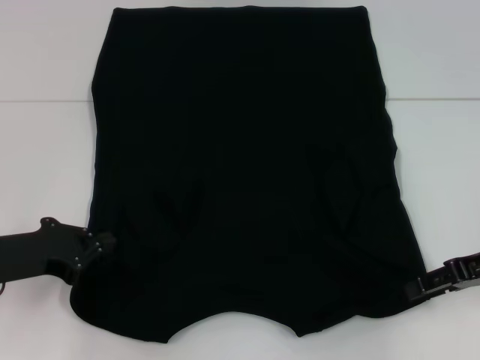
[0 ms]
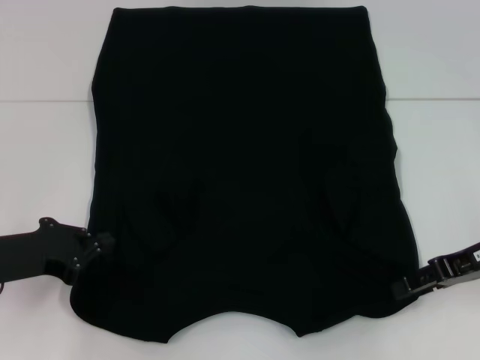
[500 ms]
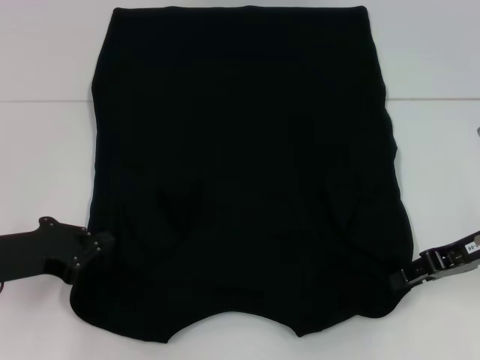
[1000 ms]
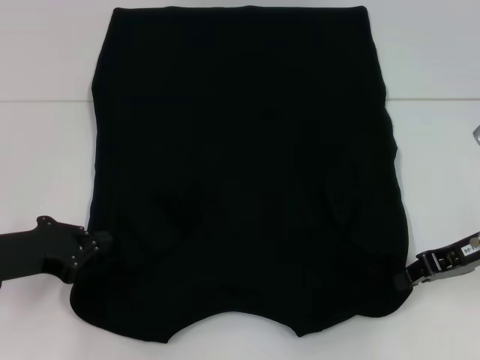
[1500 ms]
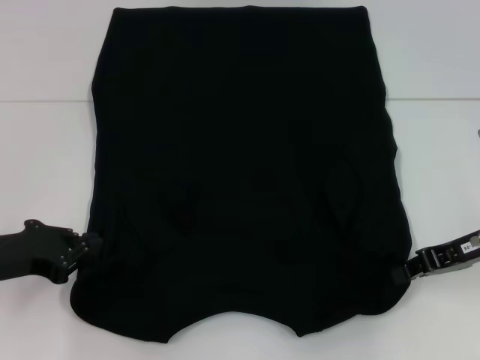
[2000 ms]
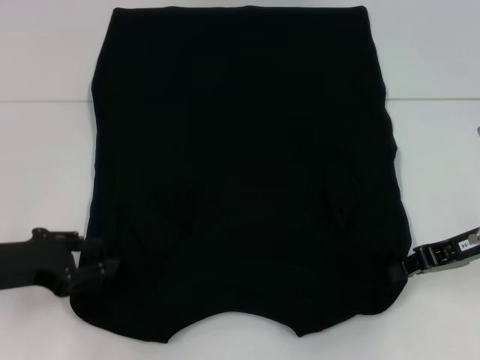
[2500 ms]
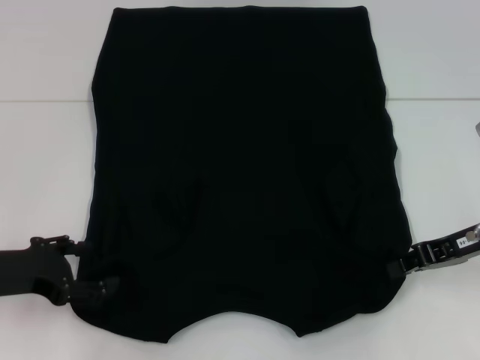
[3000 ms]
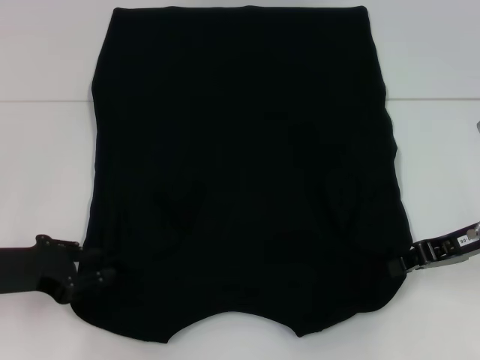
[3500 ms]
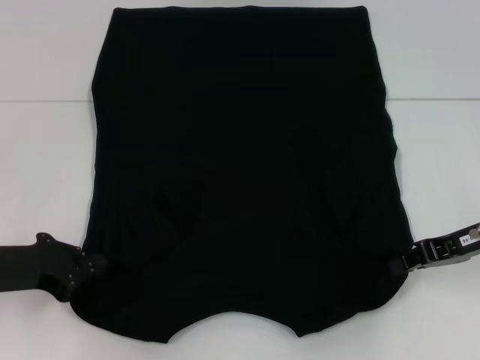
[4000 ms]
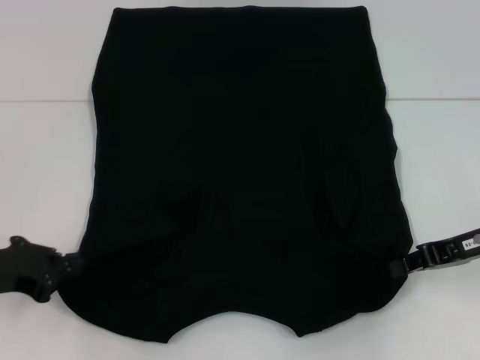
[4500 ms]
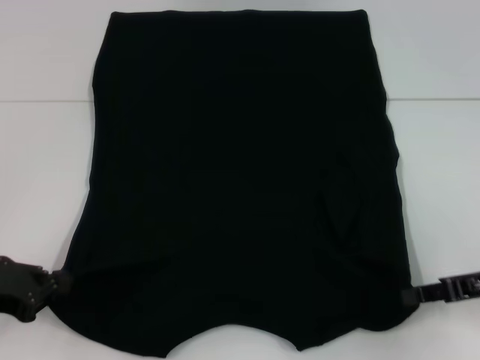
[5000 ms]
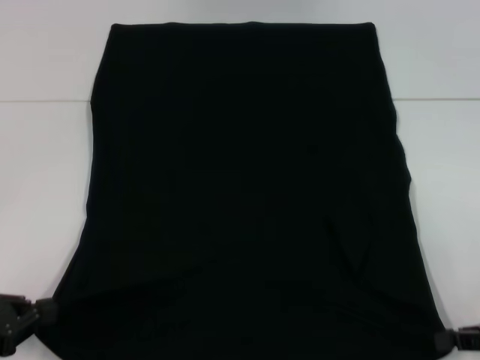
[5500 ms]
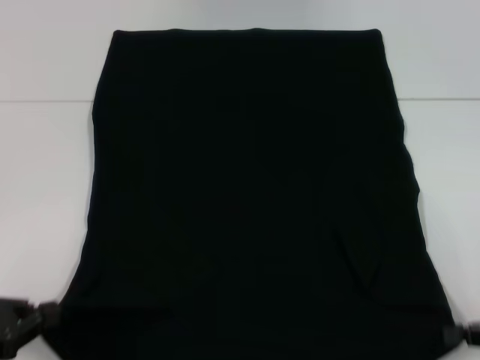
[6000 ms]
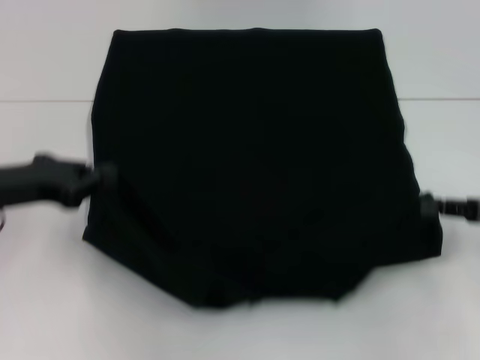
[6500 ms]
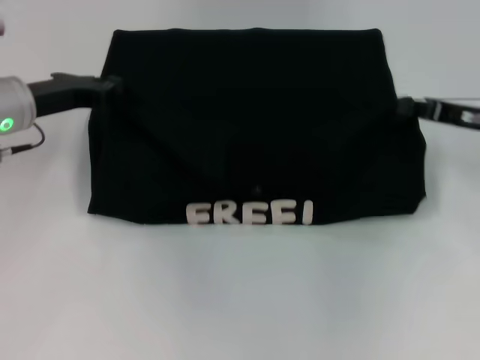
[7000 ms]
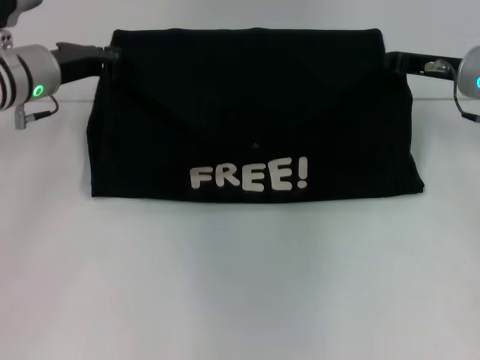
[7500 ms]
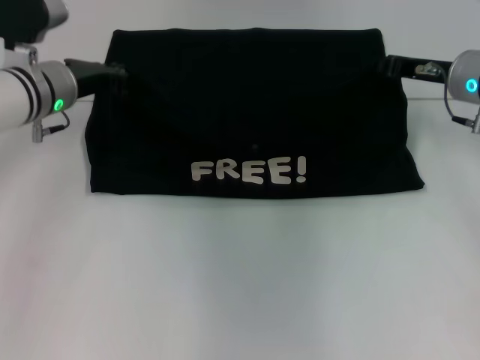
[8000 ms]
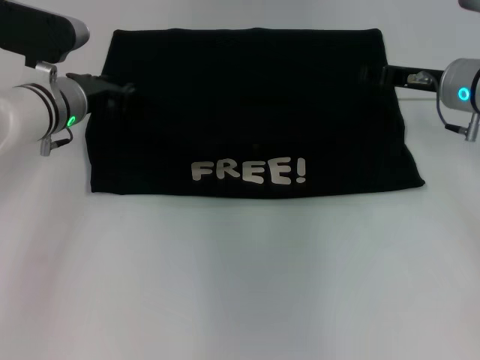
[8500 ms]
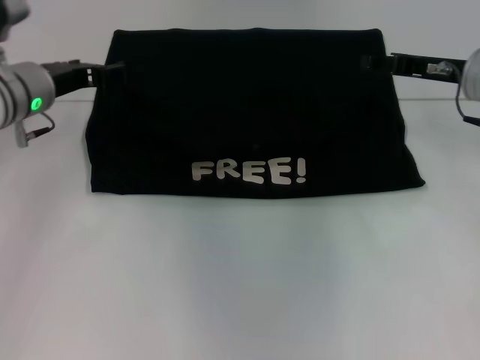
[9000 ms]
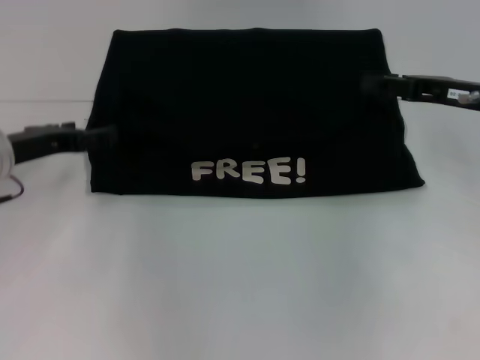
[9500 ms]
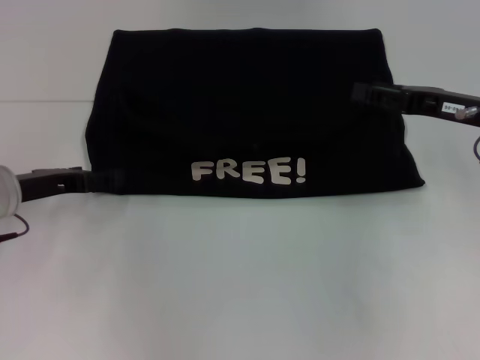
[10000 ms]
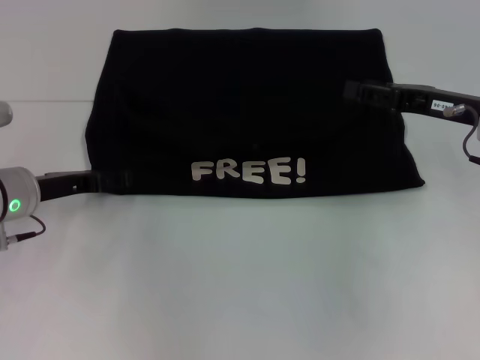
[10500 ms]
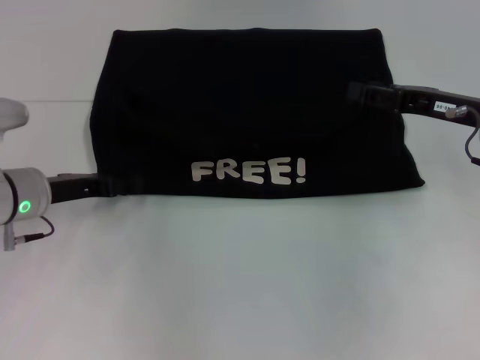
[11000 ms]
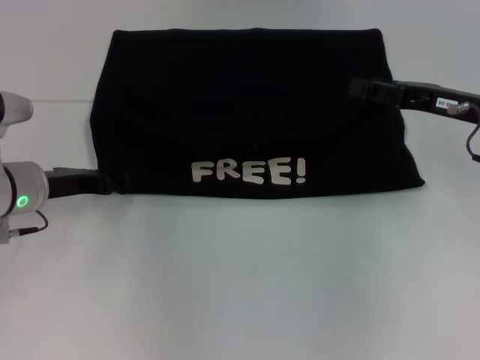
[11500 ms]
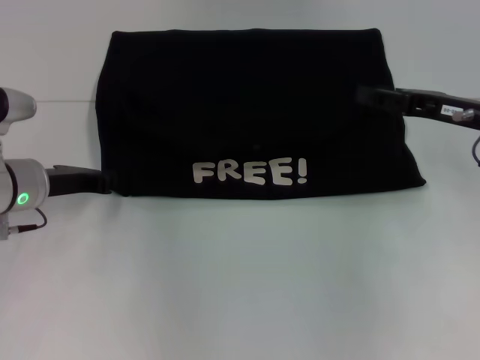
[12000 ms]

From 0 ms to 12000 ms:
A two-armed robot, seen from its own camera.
Step, from 0 ms to 9000 ms: Fold the clothes with your left hand.
Step, from 0 ms to 9000 ms: Fold the clothes with your right hand.
From 0 ms to 2000 ms: The right gripper closes.
From 2000 ms to 4000 ms: The left gripper opens, then closes once more.
From 4000 ms to 6000 ms: The left gripper heads backward, covering about 10 cm; the right gripper is displaced backward and to the right by about 15 cm.
From 6000 ms to 8000 ms: The right gripper is displaced forward and to the left by roughly 25 cm. Meanwhile the left gripper is displaced forward and to the right by approximately 30 cm.
From 8000 ms to 10000 ms: The left gripper goes some 10 cm backward and to the left, and opens up, while the right gripper is displaced backward by roughly 5 cm, and opens.
From 10000 ms to 12000 ms: The left gripper closes its fingers.

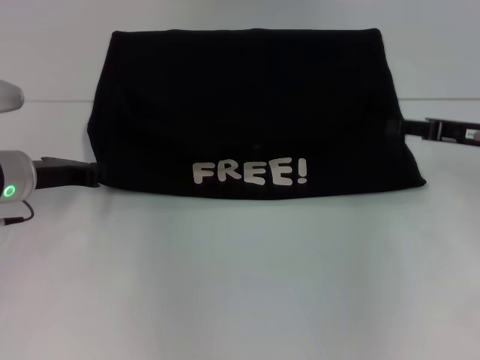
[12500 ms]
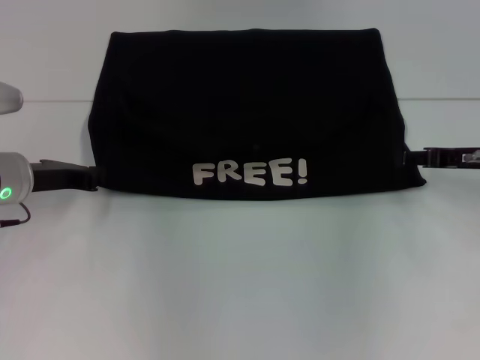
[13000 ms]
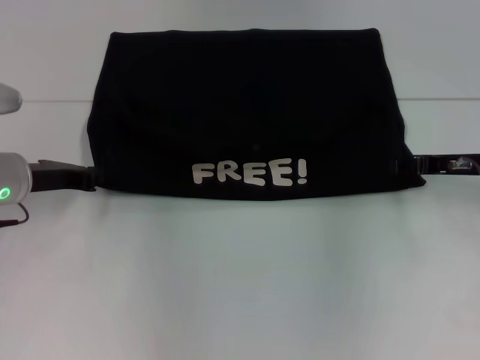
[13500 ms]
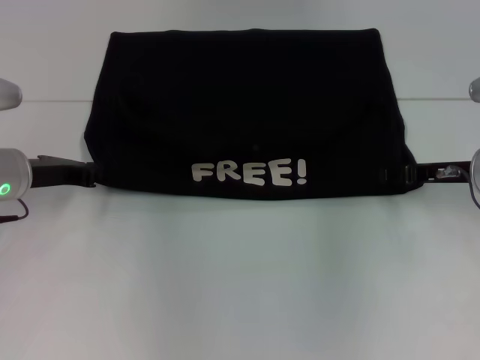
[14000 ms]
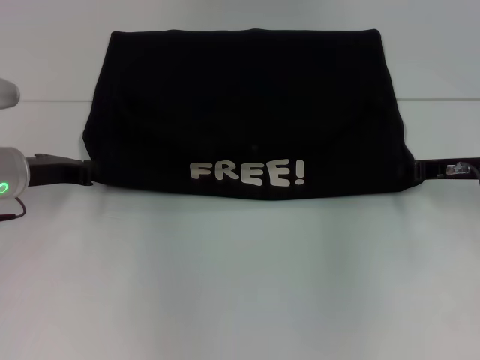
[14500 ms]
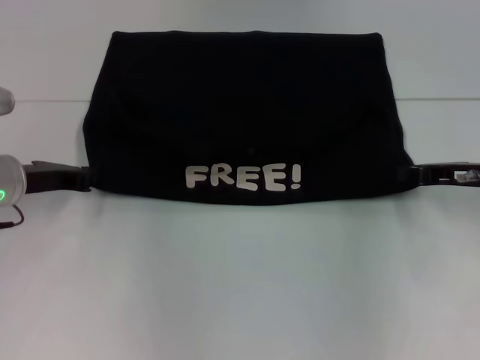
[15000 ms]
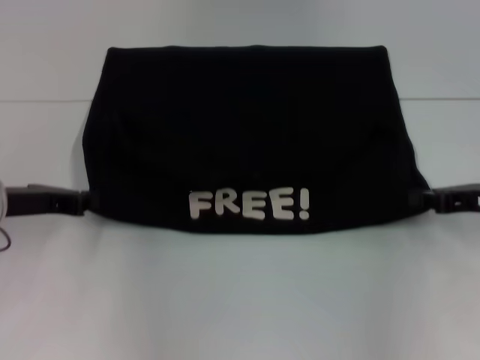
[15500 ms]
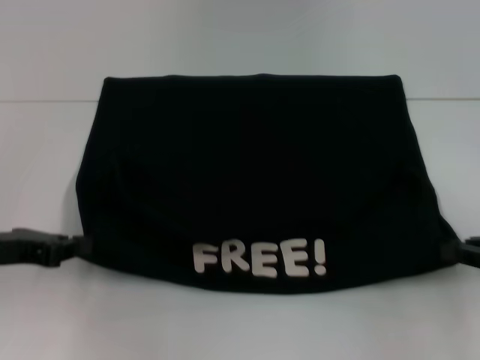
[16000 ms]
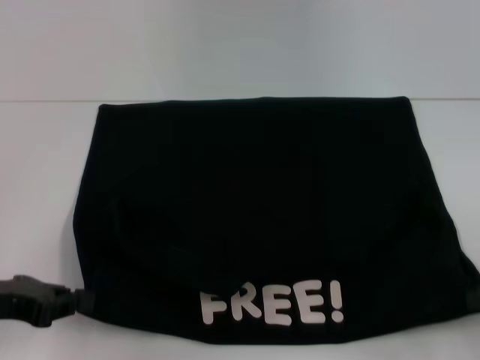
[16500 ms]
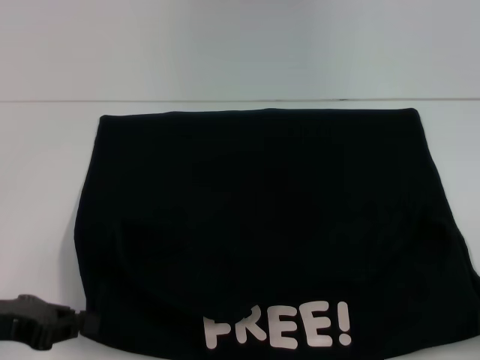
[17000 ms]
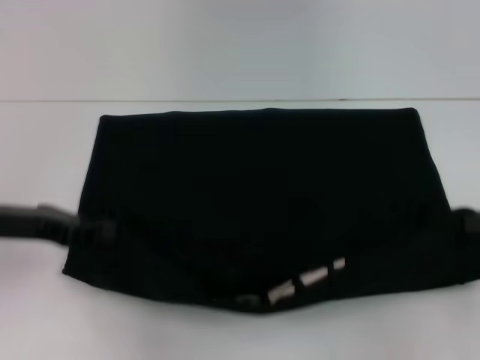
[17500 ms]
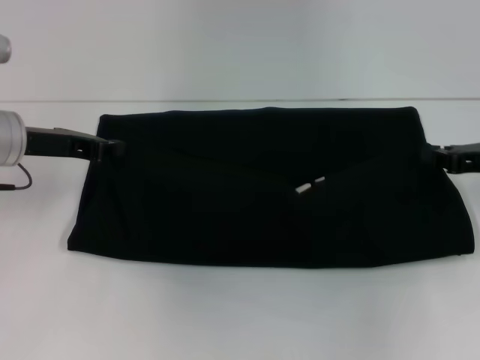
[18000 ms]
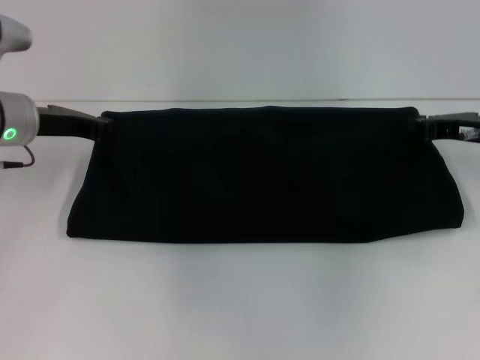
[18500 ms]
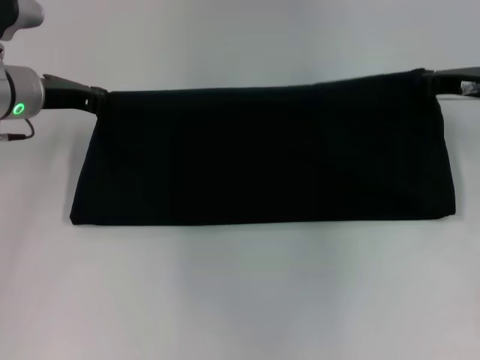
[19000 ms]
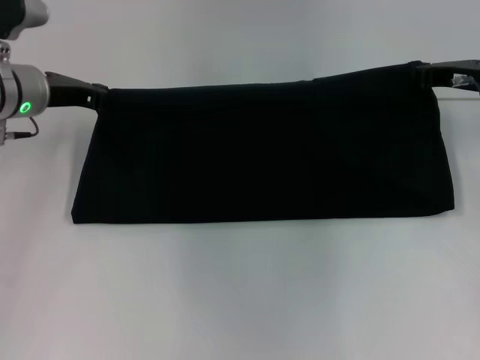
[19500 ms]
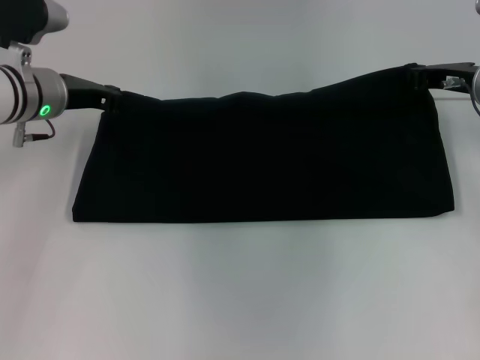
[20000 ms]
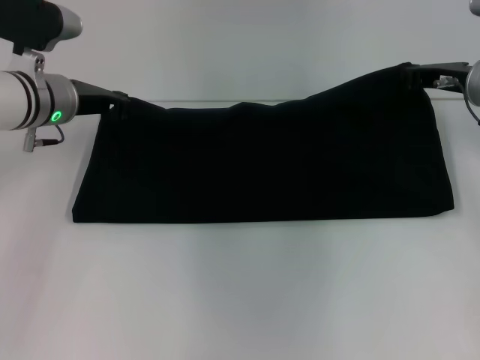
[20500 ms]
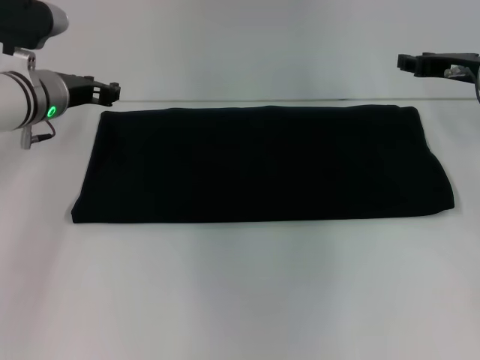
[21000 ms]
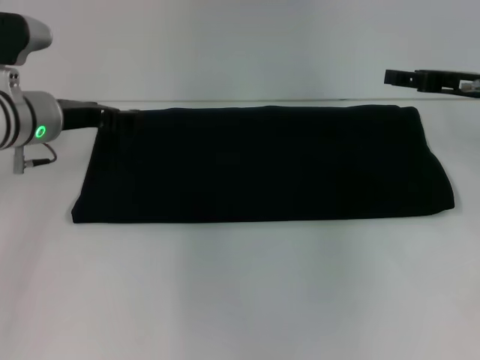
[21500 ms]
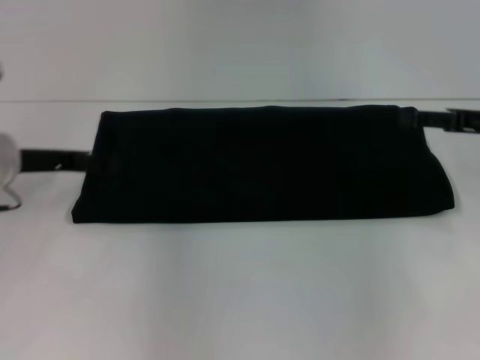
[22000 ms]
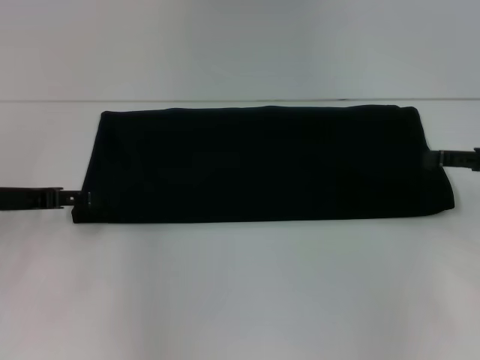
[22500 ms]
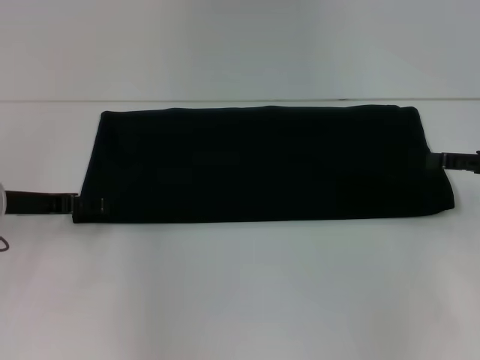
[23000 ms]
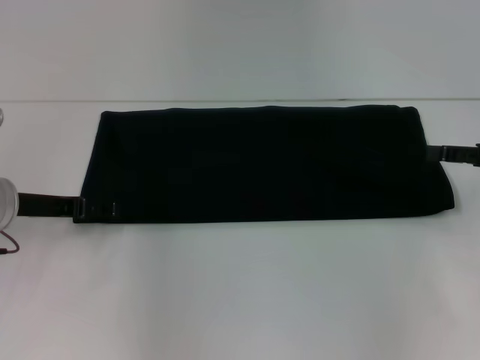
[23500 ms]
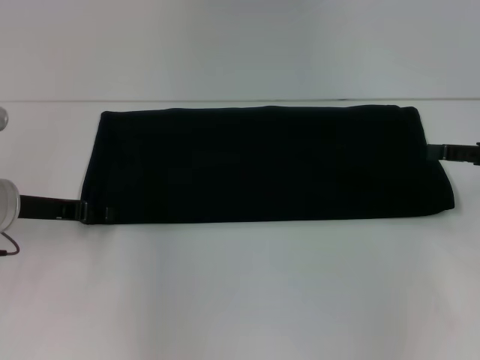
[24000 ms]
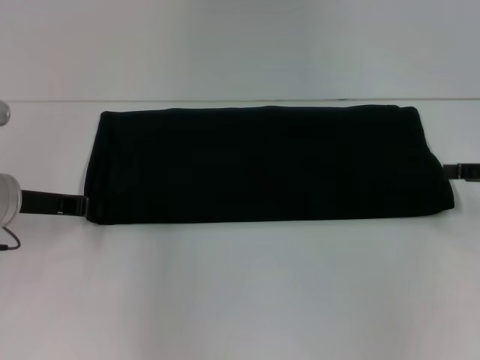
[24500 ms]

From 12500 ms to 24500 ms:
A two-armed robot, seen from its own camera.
Step, from 12500 ms to 16500 ms: Pull the clothes with your left hand.
Step, from 12500 ms to 16500 ms: Pull the clothes with your right hand.
Step, from 17000 ms to 21000 ms: Fold the clothes with your right hand.
From 12500 ms to 14500 ms: The right gripper closes its fingers.
From 14500 ms to 16500 ms: The right gripper heads backward and to the right, covering some 20 cm; the left gripper goes roughly 15 cm backward.
From 16500 ms to 18500 ms: The right gripper shifts about 20 cm forward and to the left. Meanwhile the left gripper travels forward by roughly 15 cm.
From 18500 ms to 20500 ms: The right gripper shifts by roughly 5 cm.
From 20500 ms to 22500 ms: The right gripper is displaced backward and to the right by about 15 cm, and opens. Meanwhile the left gripper heads backward and to the left, covering approximately 15 cm, and opens its fingers.
From 22500 ms to 24500 ms: The left gripper closes.

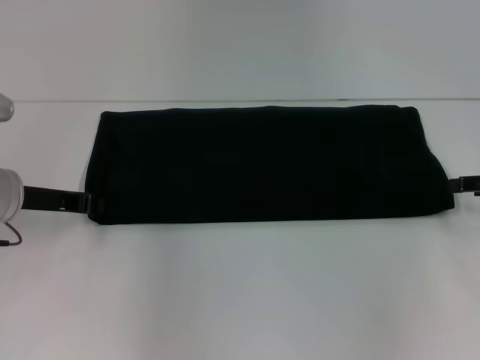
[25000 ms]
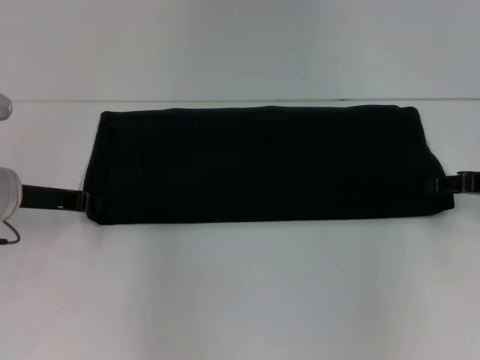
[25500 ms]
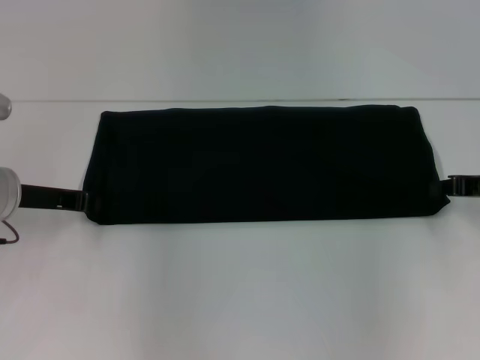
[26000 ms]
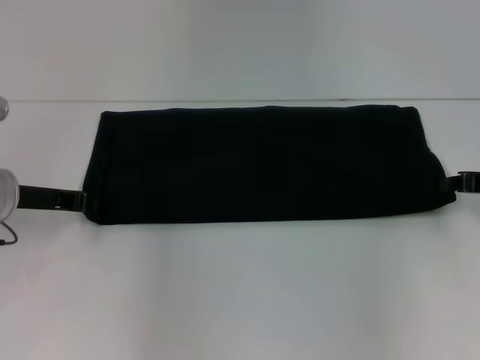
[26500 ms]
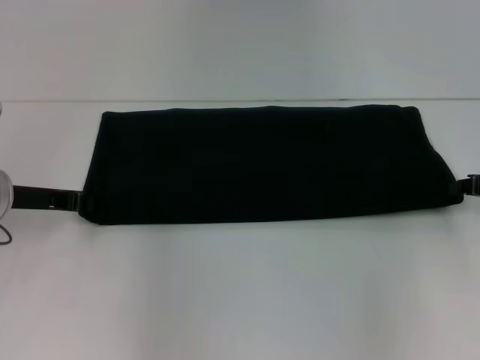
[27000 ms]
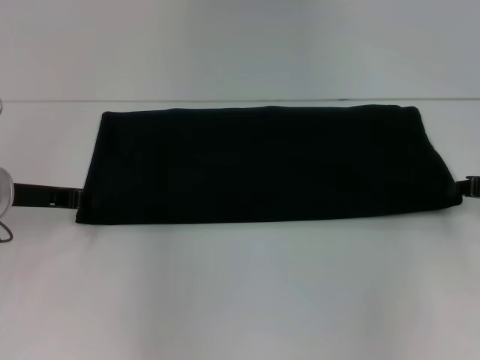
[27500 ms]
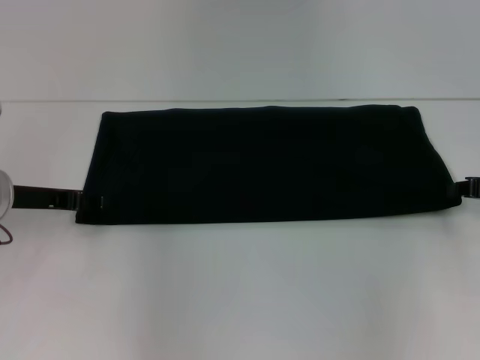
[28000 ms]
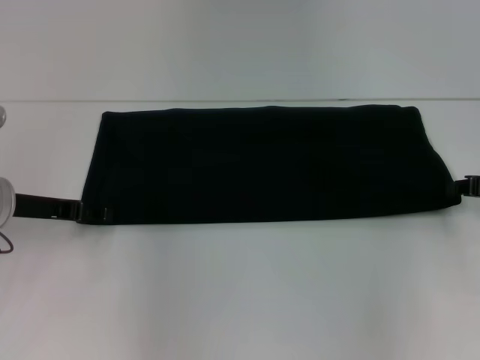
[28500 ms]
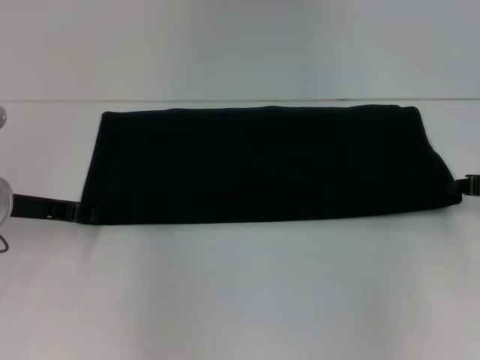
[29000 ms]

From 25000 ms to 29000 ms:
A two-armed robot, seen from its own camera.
From 25000 ms to 27000 ms: The right gripper closes up.
From 27000 ms to 29000 ms: The left gripper opens its fingers.
